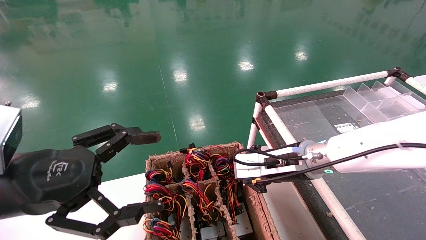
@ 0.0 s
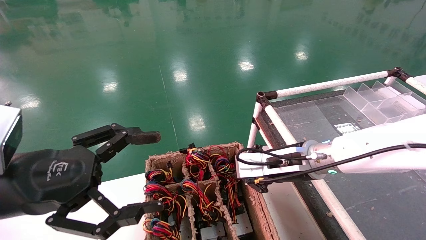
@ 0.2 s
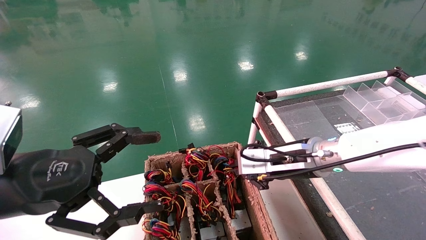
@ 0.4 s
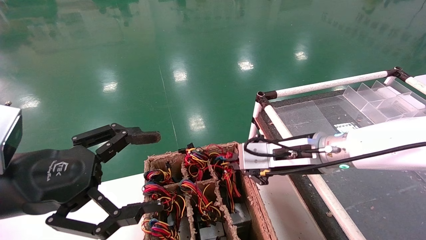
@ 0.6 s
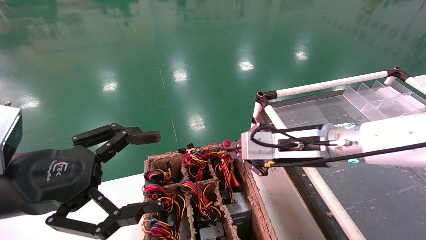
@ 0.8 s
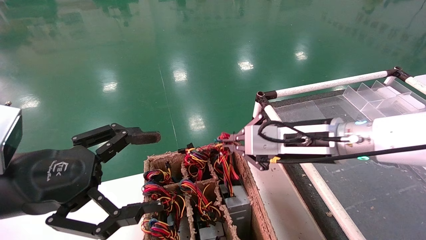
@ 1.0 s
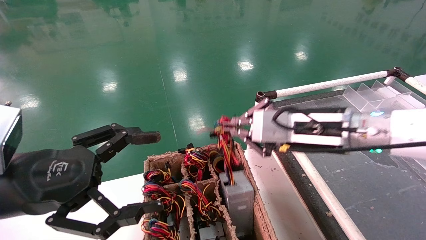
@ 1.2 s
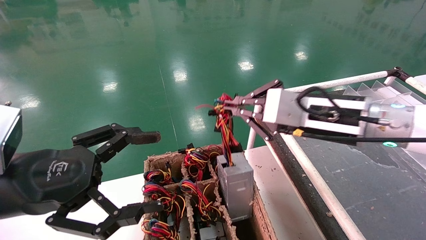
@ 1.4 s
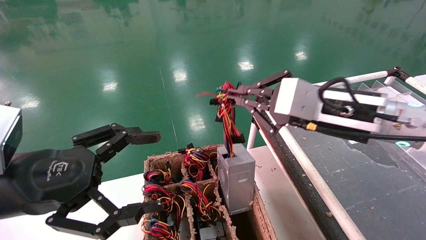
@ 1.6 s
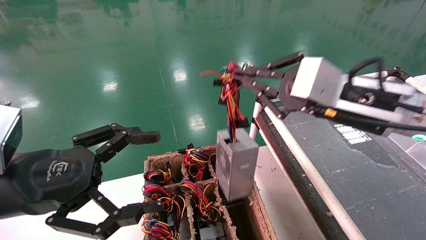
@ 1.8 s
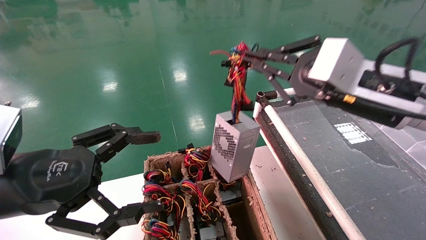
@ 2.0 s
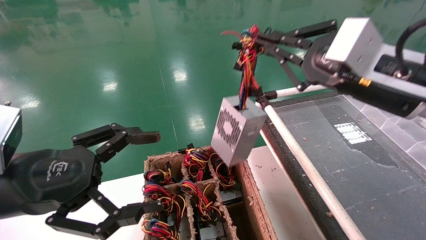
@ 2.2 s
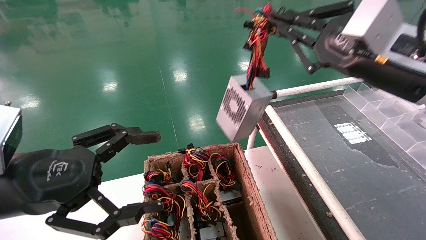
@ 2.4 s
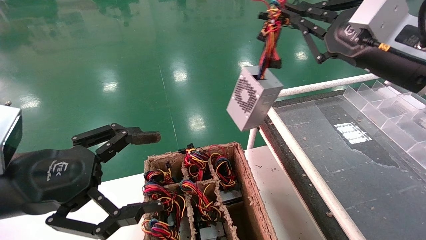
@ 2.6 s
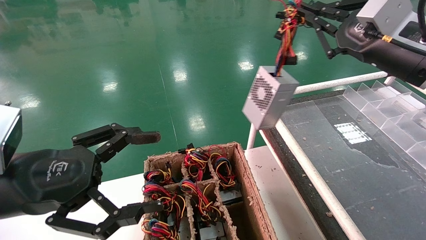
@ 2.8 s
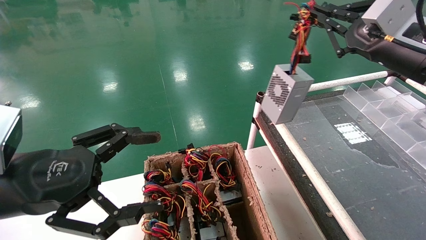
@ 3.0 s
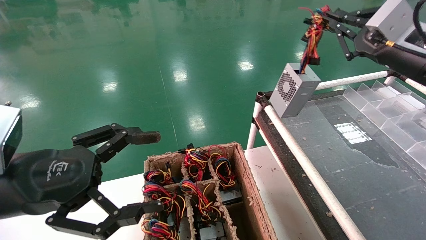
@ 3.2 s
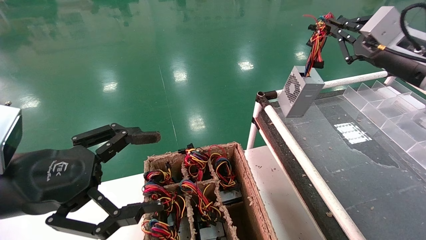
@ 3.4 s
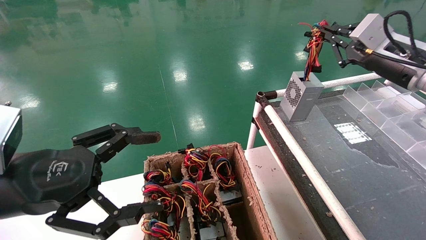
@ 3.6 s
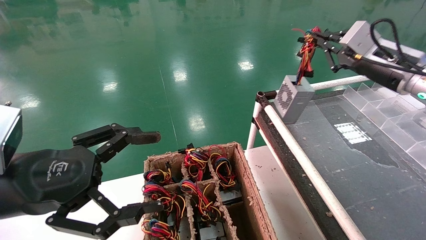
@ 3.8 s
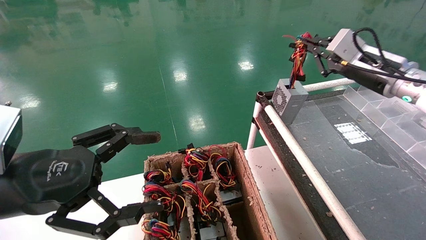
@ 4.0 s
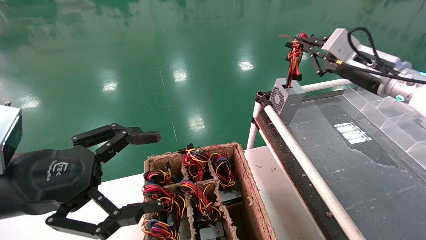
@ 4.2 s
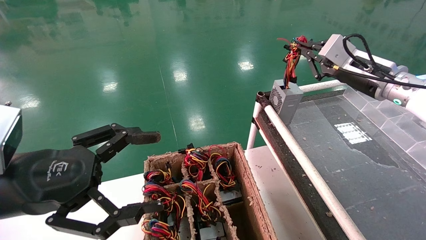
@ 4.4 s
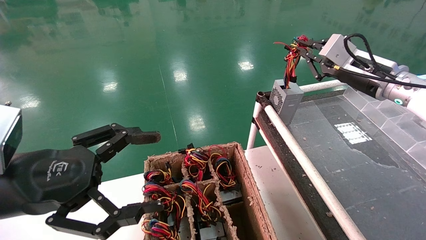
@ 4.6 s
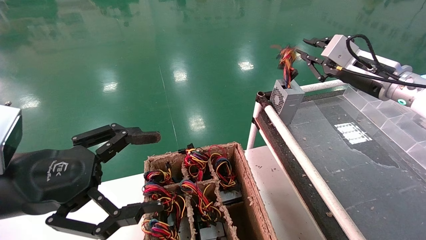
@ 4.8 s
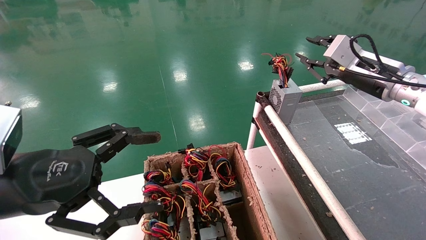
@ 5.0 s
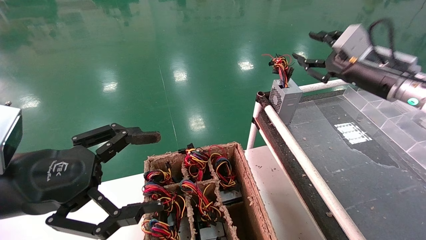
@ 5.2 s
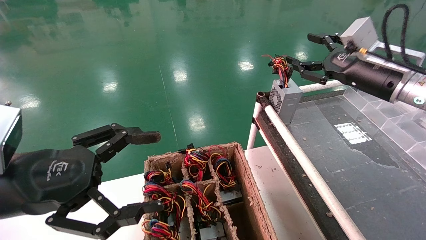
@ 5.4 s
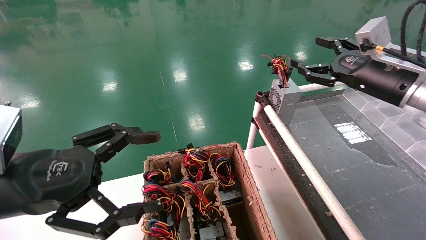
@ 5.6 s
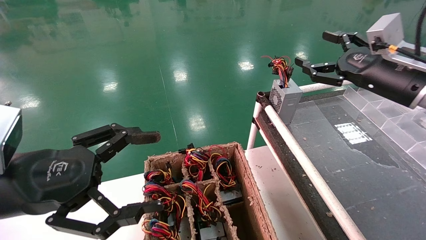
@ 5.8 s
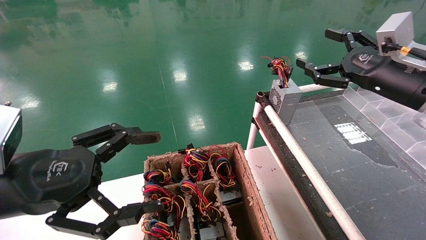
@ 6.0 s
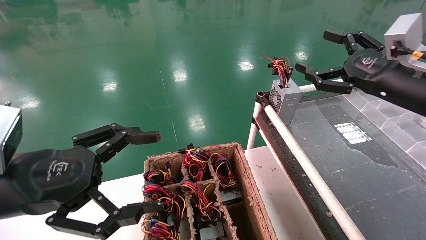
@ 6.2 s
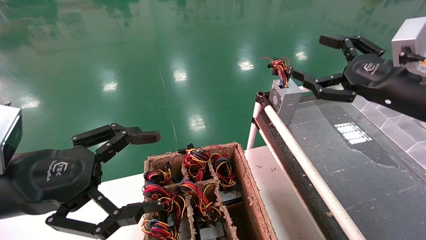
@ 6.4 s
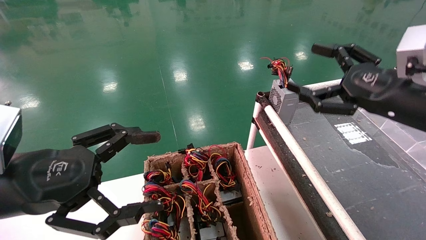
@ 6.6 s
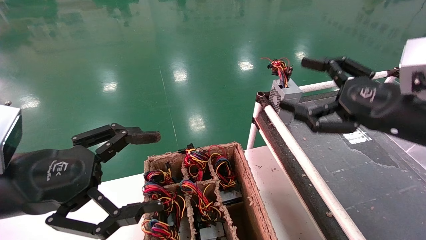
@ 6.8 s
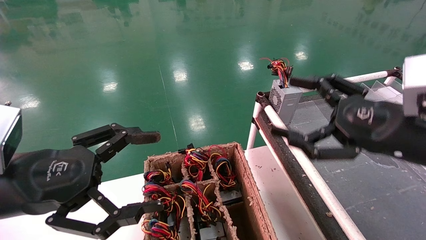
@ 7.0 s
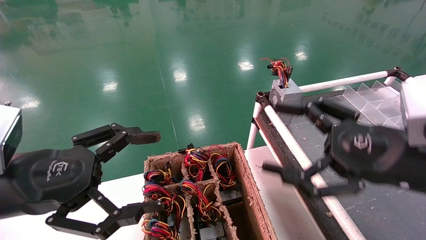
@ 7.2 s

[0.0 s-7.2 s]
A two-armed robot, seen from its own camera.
Step, 0.4 to 4.6 s: Place the power supply on the operating table.
0.0 to 1.4 s: The right gripper goes approximately 10 cm upward and backward.
1.4 to 2.8 s: The right gripper travels to the right and upward by approximately 15 cm.
2.8 to 4.4 s: The right gripper heads forward, covering roughly 10 cm.
4.4 to 5.8 s: The right gripper goes some 5 cm backward, and opens its fingers.
5.8 to 7.2 s: The right gripper goes some 15 cm backward, to the left and downward.

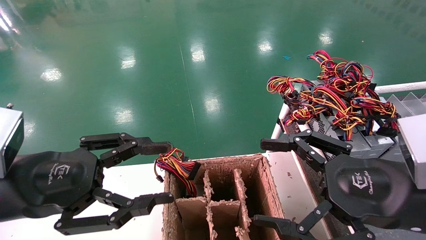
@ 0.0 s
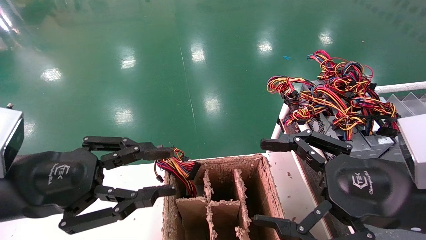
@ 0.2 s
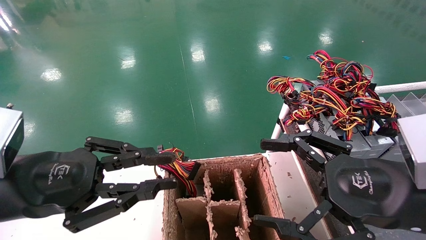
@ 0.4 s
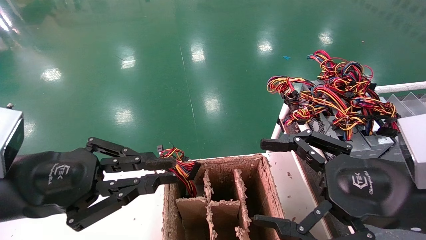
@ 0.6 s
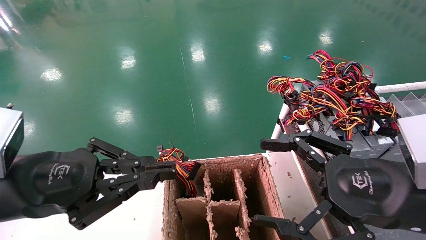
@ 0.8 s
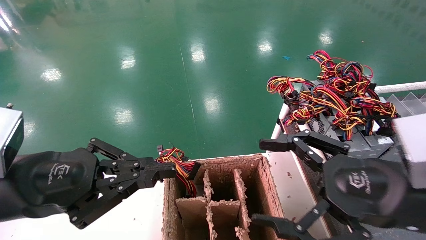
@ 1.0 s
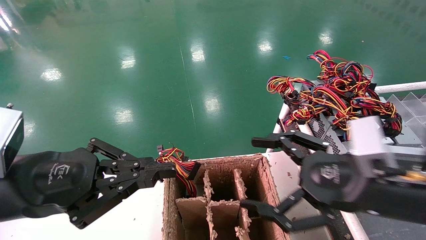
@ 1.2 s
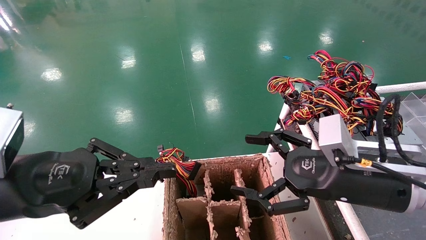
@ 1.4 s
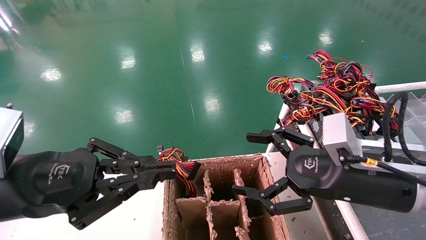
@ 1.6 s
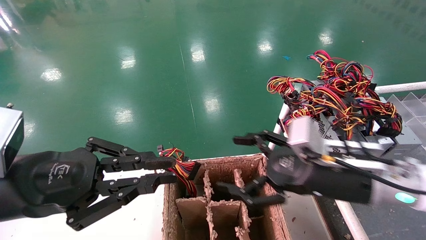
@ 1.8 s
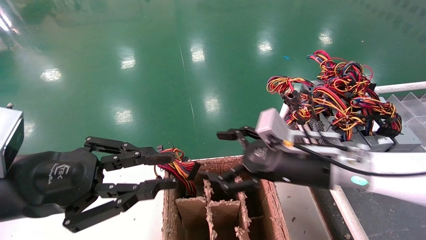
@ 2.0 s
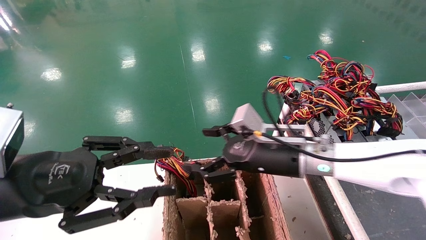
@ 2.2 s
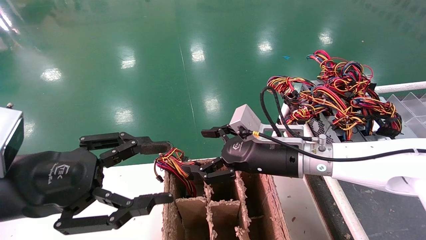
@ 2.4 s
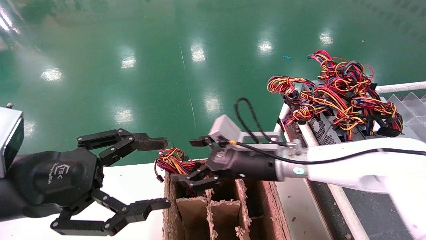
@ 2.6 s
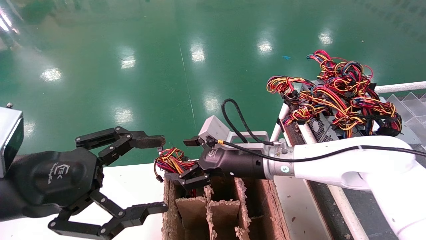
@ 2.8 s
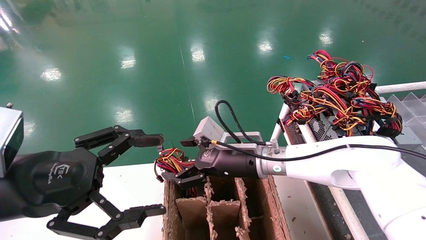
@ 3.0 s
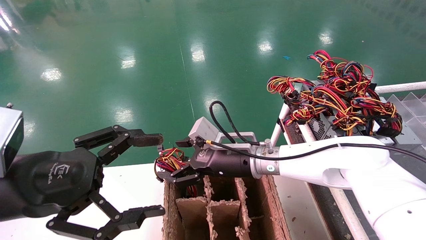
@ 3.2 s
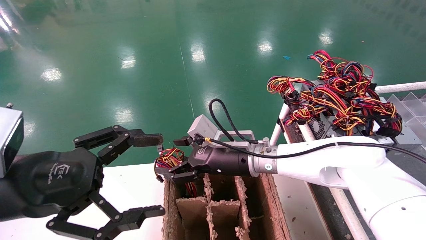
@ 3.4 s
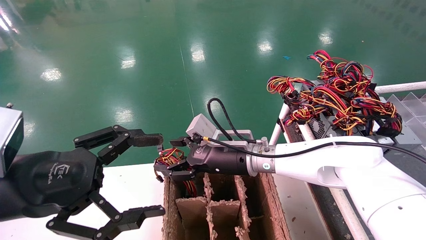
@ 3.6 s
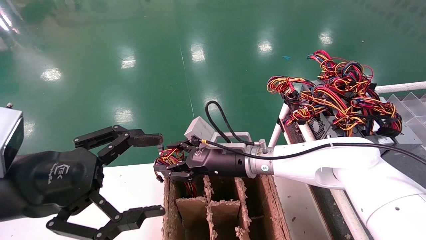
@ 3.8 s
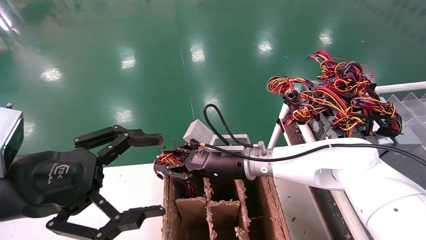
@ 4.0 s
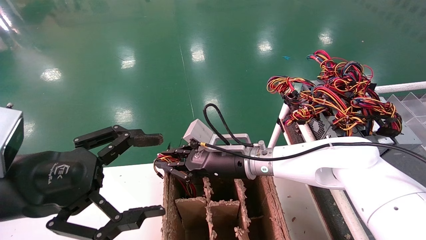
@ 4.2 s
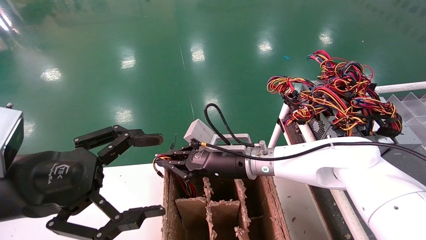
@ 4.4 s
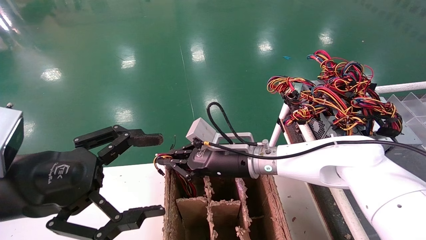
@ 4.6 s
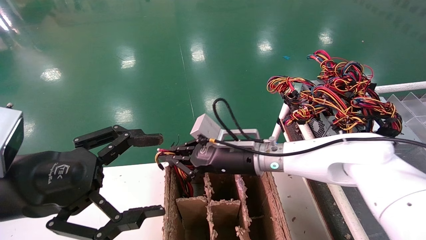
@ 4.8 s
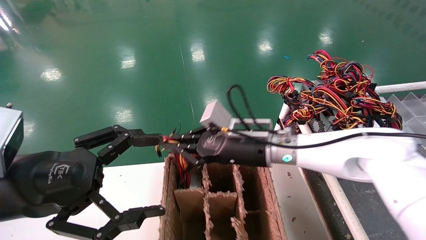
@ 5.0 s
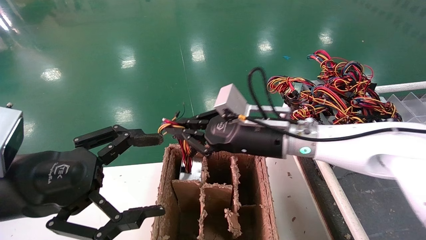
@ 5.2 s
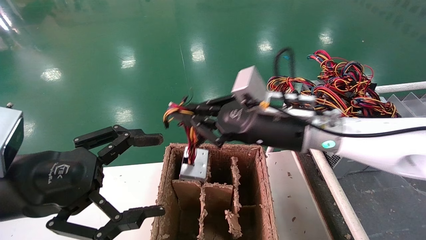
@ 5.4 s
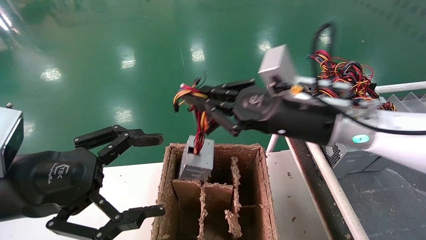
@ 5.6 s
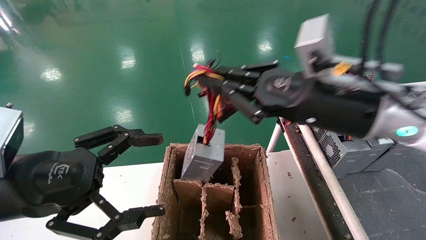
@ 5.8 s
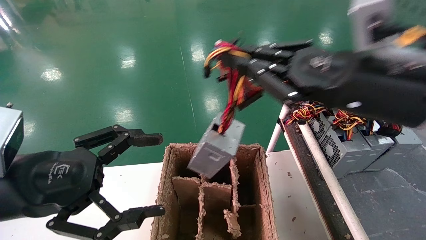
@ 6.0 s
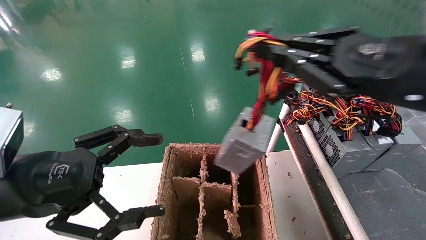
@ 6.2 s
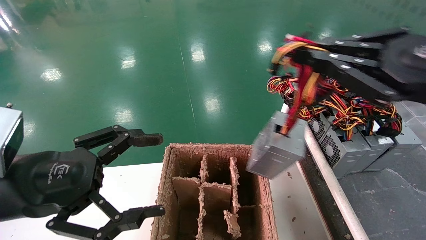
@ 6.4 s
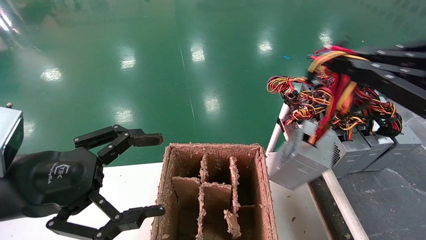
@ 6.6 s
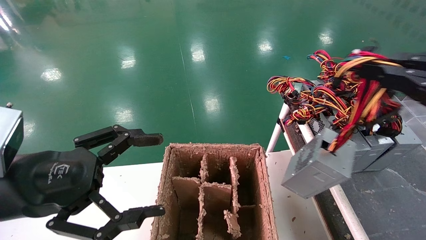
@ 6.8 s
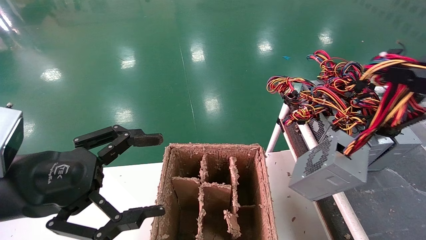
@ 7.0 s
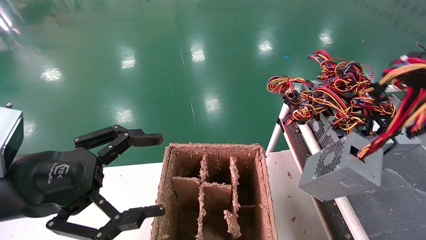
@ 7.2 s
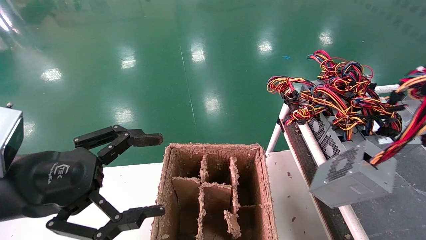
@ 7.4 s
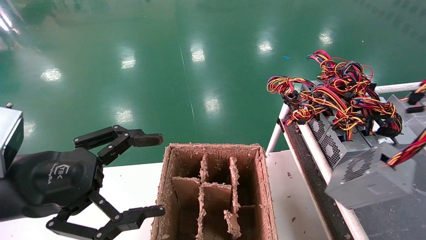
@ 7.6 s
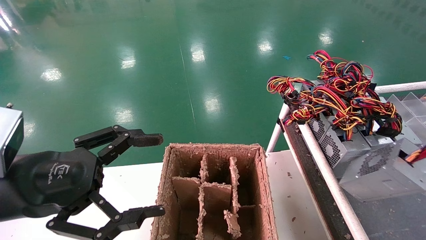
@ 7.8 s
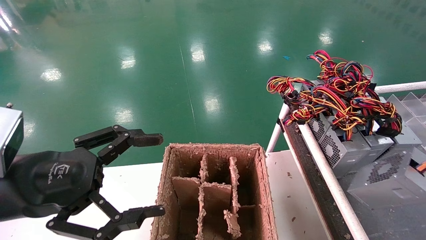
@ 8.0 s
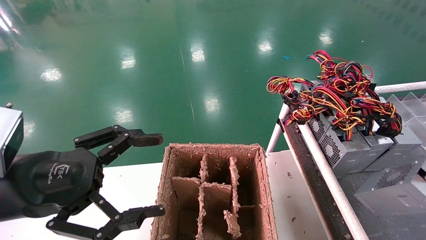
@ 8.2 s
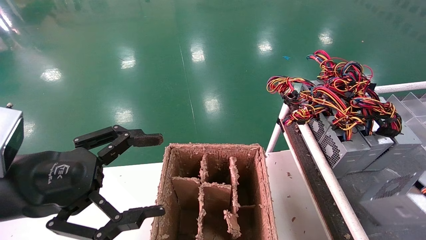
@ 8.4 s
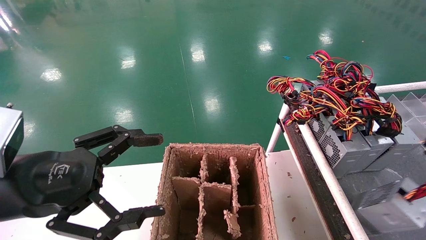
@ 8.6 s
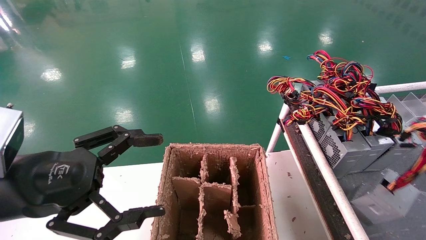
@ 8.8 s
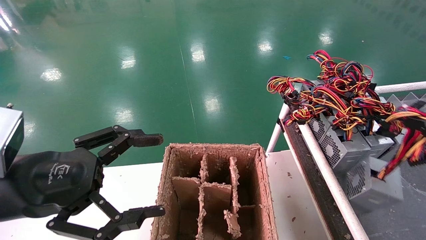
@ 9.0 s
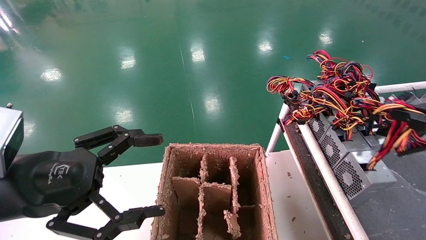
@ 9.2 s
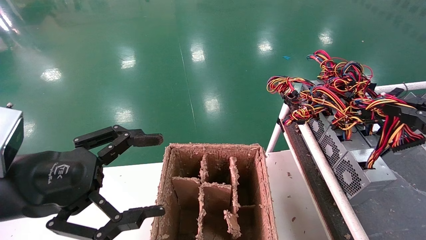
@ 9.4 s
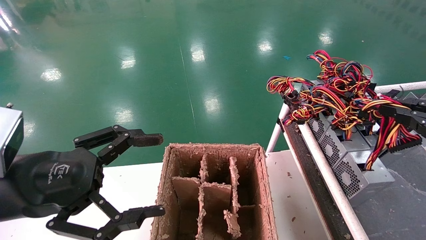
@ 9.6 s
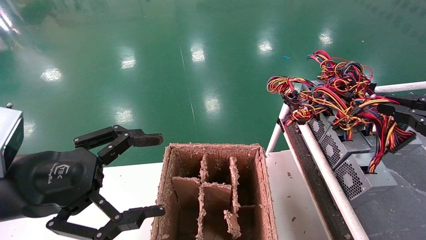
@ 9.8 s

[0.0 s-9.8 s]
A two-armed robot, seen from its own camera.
Step, 1.4 to 4.4 s: Grab and lift the power supply from the large box.
0.0 to 1.4 s: The right gripper heads forward, covering some 5 cm. The left gripper closes up.
1.4 to 2.8 s: The right gripper shifts approximately 20 cm to the left and forward, while the left gripper opens.
2.8 to 4.2 s: The right gripper closes its fingers.
4.2 to 5.6 s: The right gripper moves upward, to the right and backward, approximately 20 cm.
5.6 to 7.0 s: The right gripper travels to the right and backward by approximately 30 cm.
7.0 to 8.4 s: The right gripper goes some 10 cm to the right and downward.
8.4 to 9.8 s: The right gripper shifts roughly 10 cm forward and to the left.
